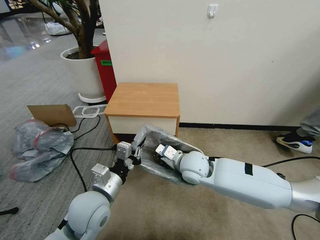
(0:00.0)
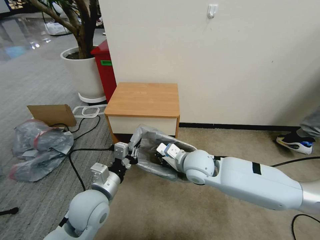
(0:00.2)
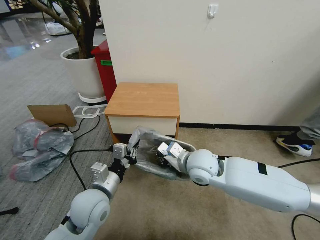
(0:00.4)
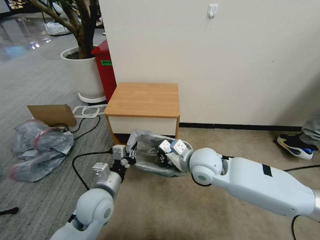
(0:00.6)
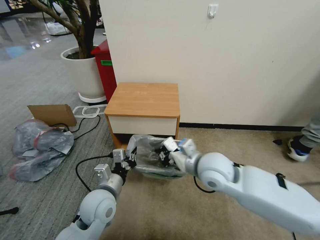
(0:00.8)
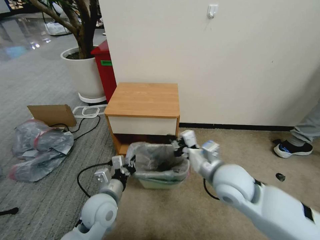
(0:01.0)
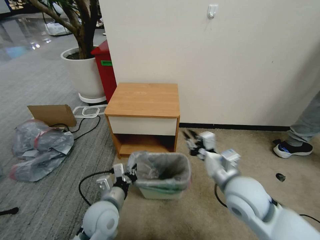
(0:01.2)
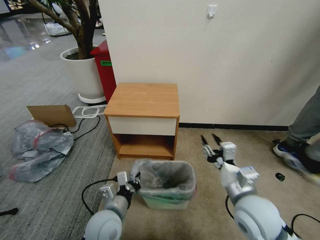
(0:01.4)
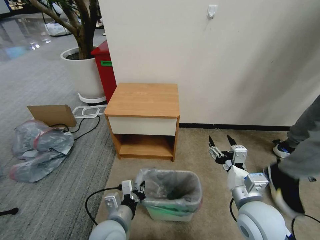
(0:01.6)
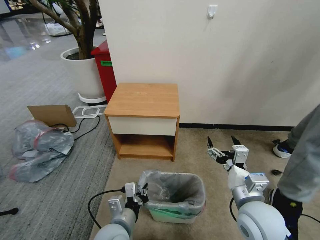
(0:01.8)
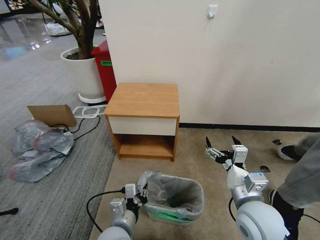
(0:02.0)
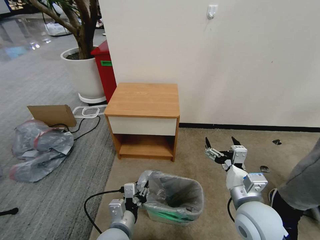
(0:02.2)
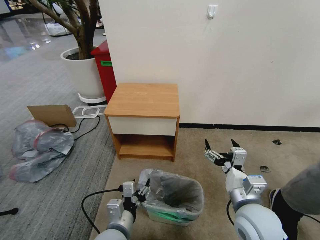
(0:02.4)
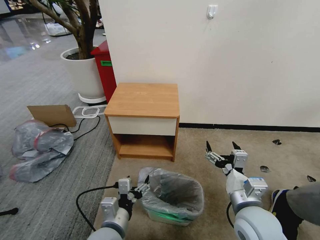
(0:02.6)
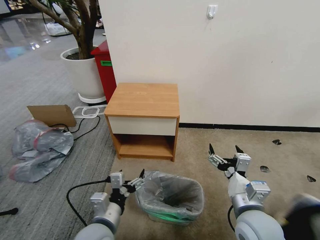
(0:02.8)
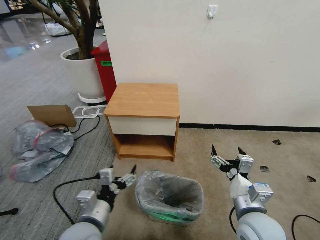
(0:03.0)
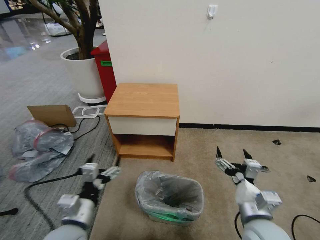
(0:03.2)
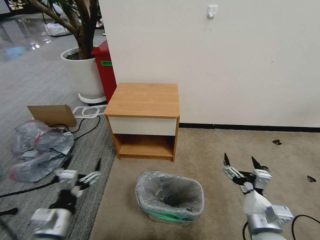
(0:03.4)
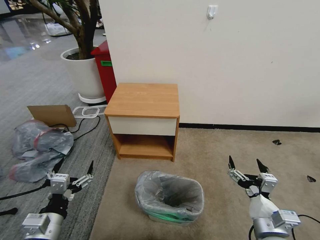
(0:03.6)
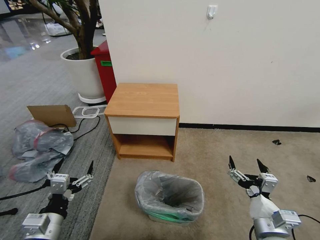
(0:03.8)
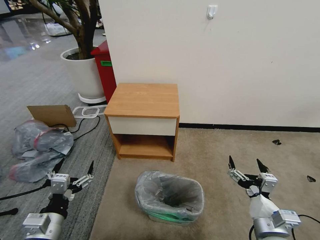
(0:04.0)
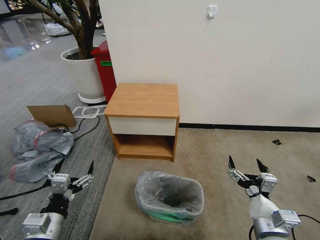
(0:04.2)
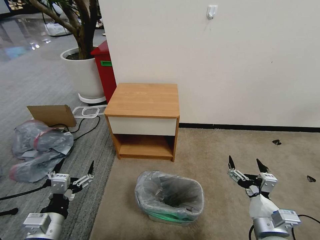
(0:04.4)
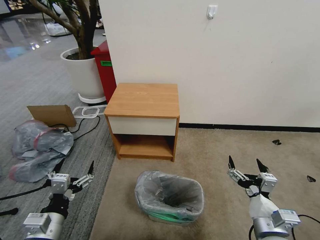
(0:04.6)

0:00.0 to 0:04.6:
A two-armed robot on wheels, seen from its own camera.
Task of the whole recording: Pick up the garbage bag from the table and place it over the trash can.
0:00.0 to 0:01.6: The right gripper goes some 20 cm backward and to the right, and opens. Meanwhile the left gripper heads downward and backward, covering approximately 10 cm.
0:01.6 to 0:03.0: The left gripper goes about 10 cm upward and to the left, and opens its fingers.
0:03.0 to 0:04.6: The right gripper shifts by about 5 cm, while the left gripper goes roughly 10 cm to the left.
